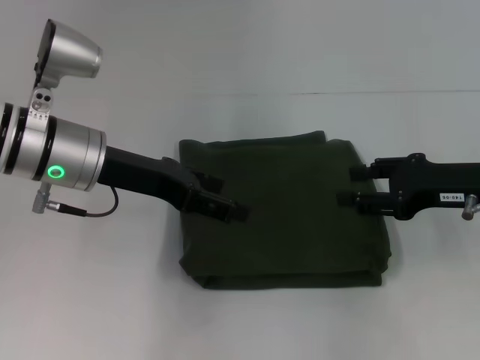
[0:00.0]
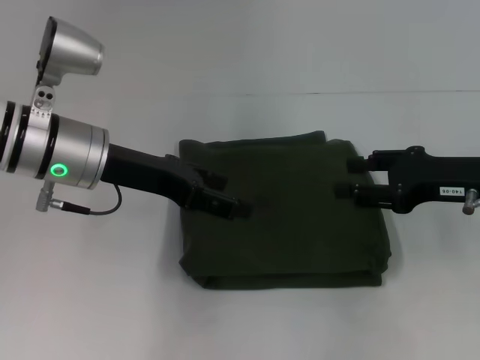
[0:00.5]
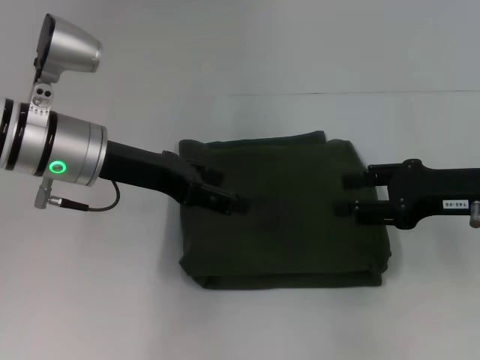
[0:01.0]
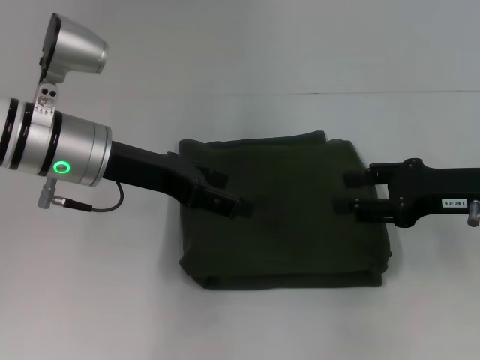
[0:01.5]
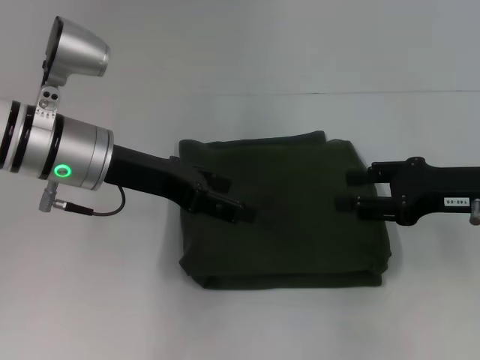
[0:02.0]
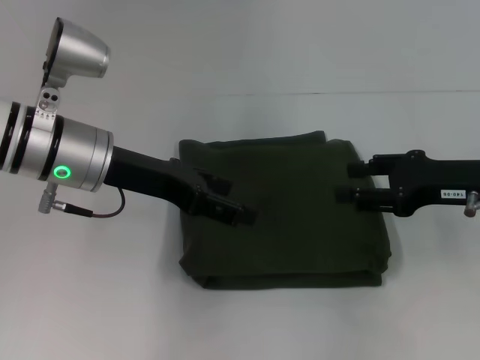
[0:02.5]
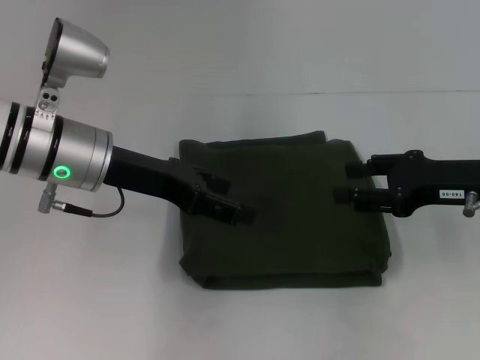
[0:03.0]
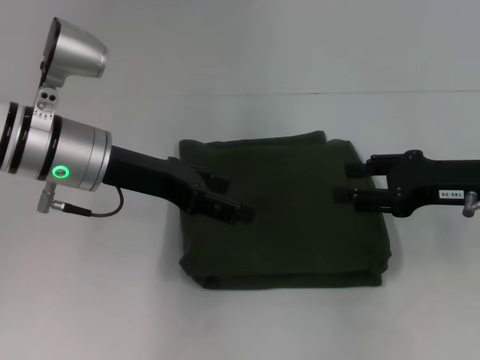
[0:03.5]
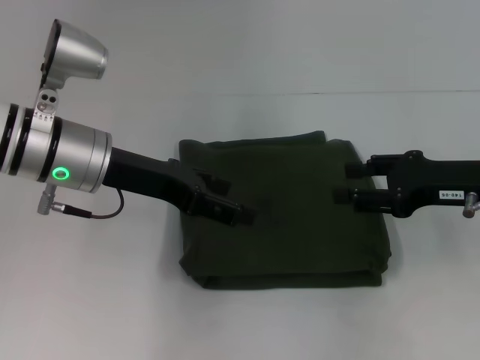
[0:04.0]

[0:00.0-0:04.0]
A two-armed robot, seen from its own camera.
0:00.0 to 0:02.0: The grippers stay close to where they were, moving slightly.
0:02.0 to 0:04.0: Both grippers stay about where they are.

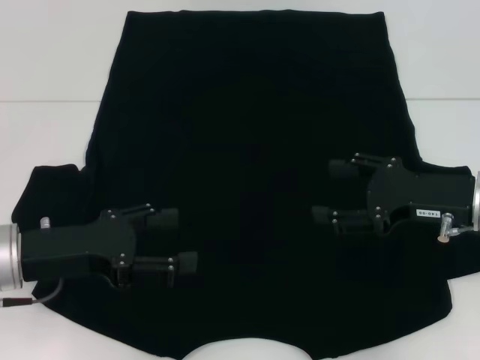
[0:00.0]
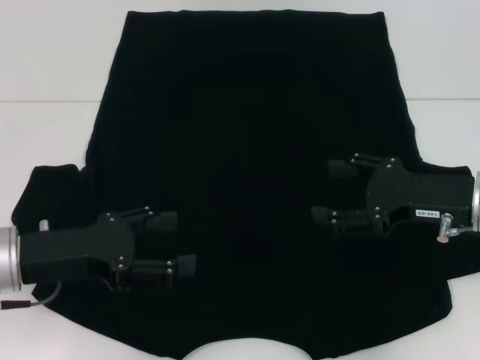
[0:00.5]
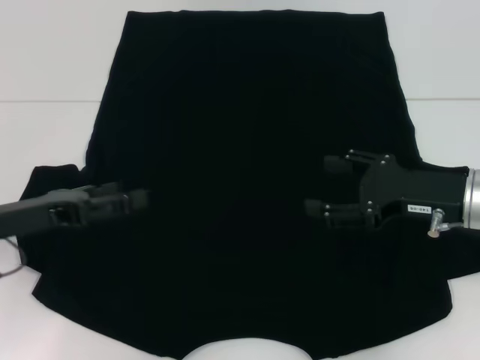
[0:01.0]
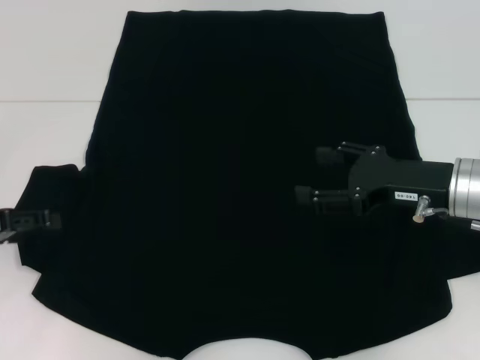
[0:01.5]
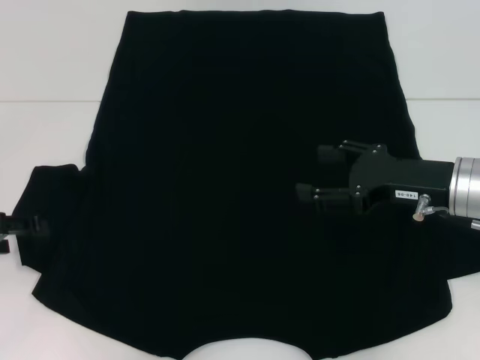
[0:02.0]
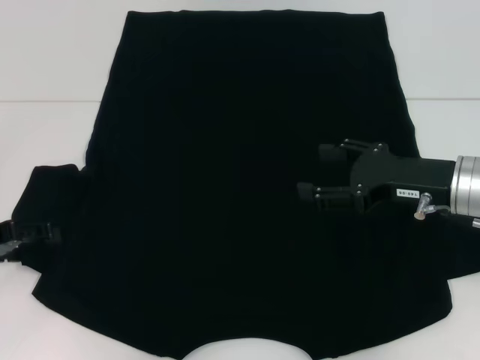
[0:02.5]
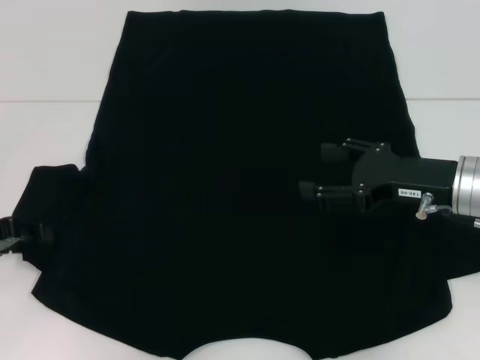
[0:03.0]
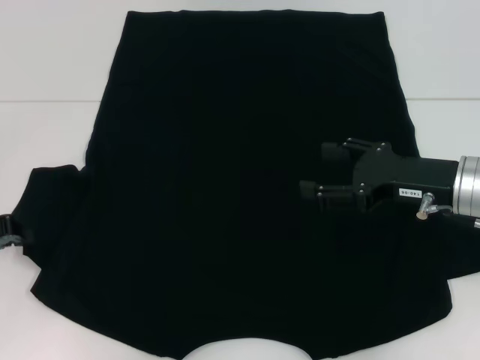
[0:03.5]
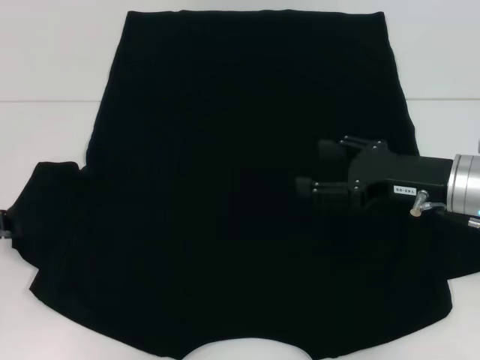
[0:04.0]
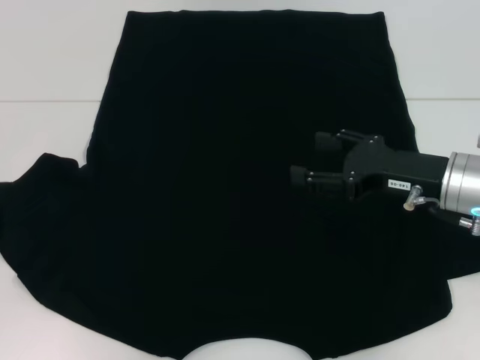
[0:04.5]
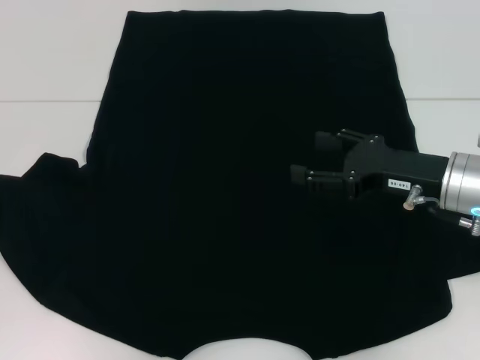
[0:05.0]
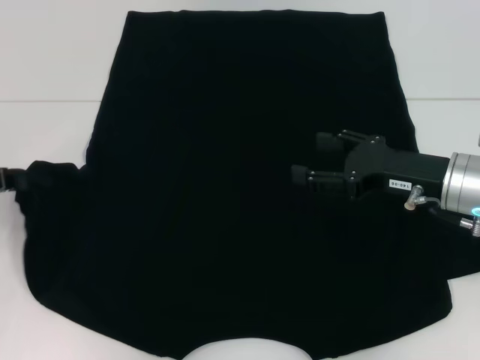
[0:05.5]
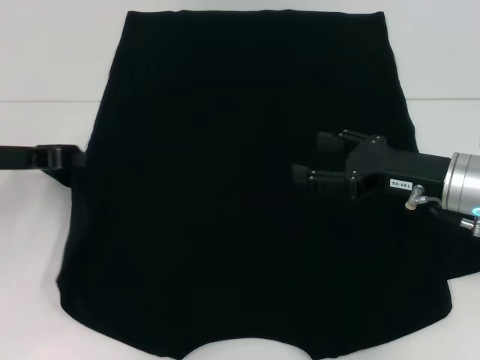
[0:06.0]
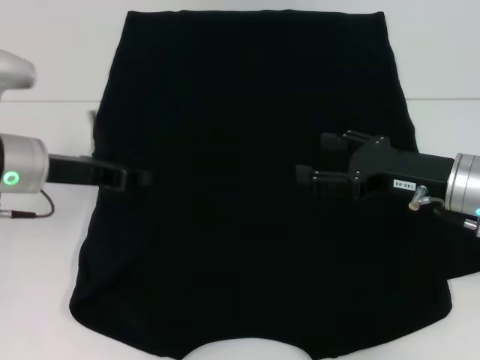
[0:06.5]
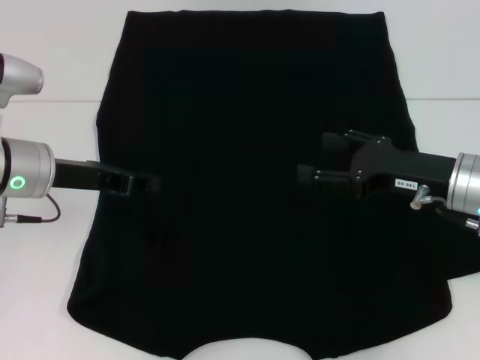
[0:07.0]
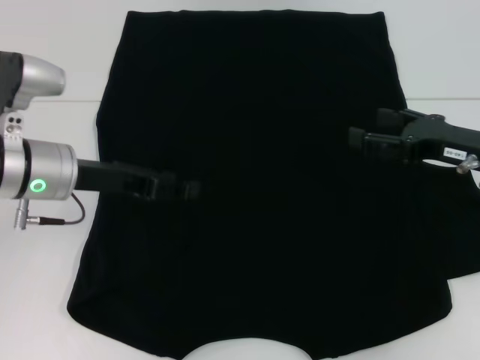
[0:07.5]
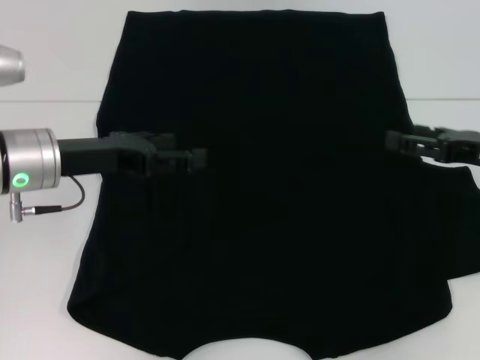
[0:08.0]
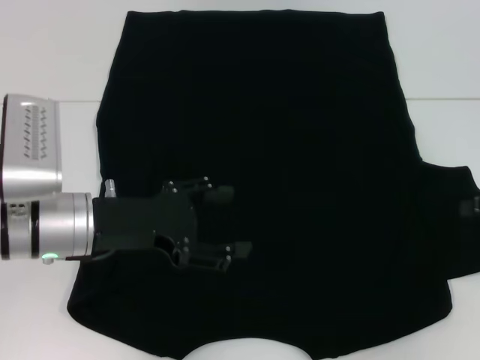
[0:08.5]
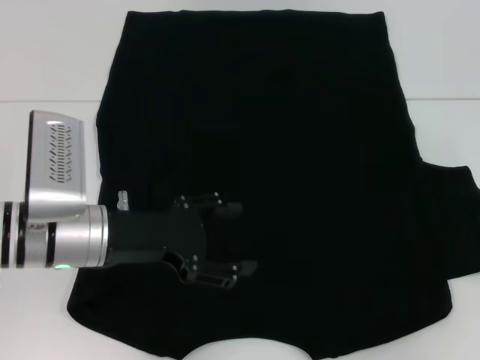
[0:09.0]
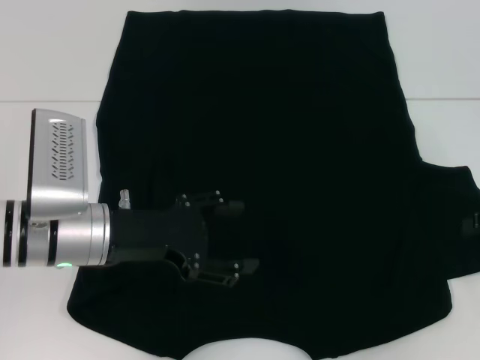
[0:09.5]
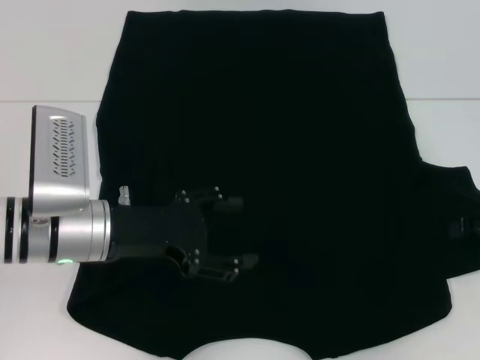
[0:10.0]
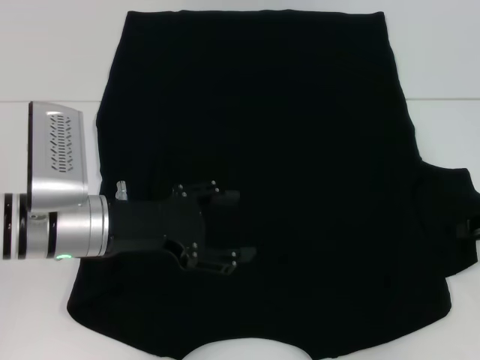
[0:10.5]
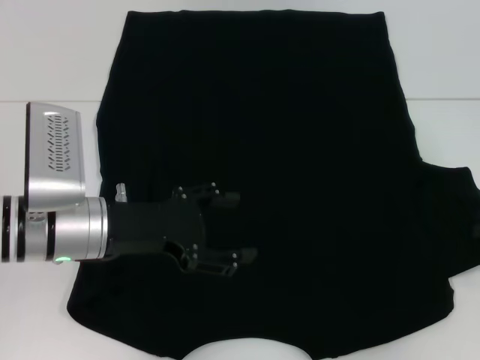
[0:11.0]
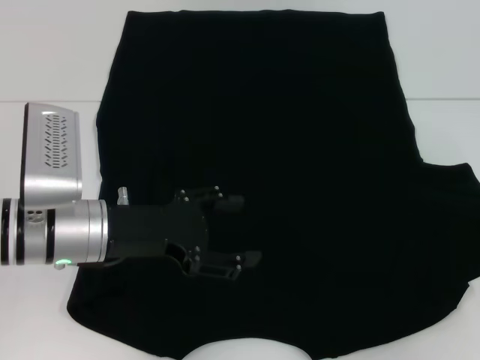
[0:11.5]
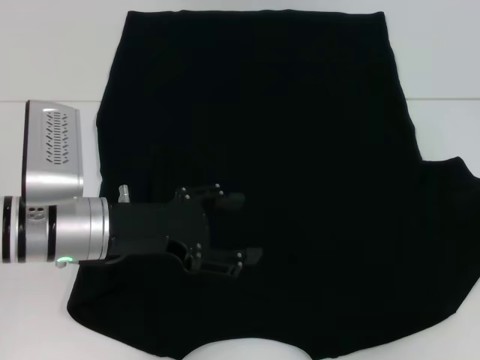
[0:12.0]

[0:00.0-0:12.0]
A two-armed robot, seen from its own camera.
Step, 0:00.0 to 0:08.0: Fold the bottom left sleeve with your left hand.
0:00.0 to 0:02.0: The left gripper goes roughly 10 cm to the left.
0:02.0 to 0:04.0: The left gripper closes its fingers.
0:04.0 to 0:06.0: The left gripper shifts some 5 cm forward and to the right.
0:06.0 to 0:08.0: Both grippers travel together to the right, approximately 10 cm. The left gripper opens up.
0:08.0 to 0:10.0: The left gripper ends up approximately 5 cm from where it was.
0:10.0 to 0:12.0: The right gripper closes its fingers.

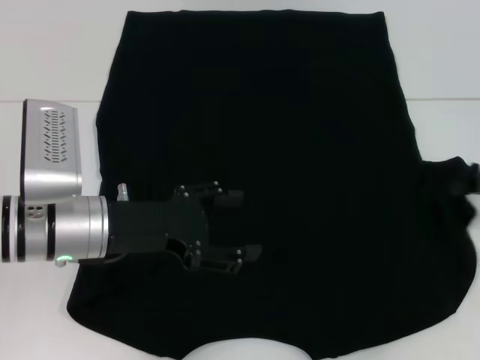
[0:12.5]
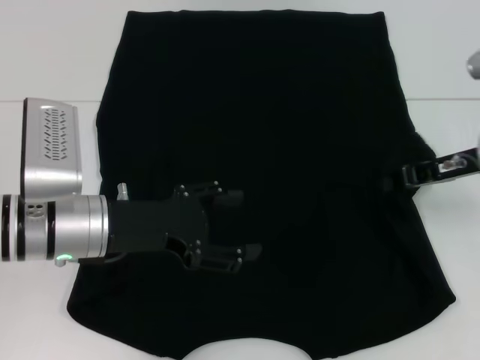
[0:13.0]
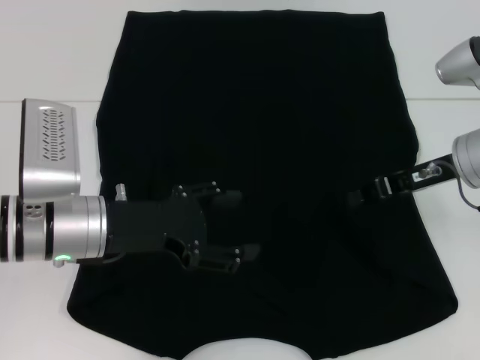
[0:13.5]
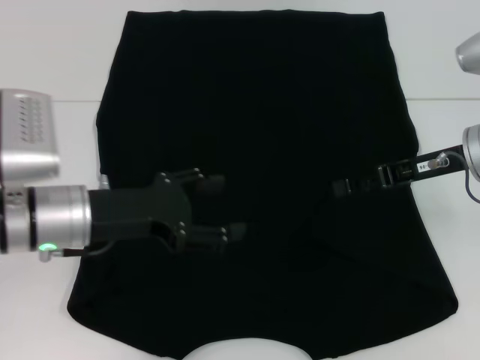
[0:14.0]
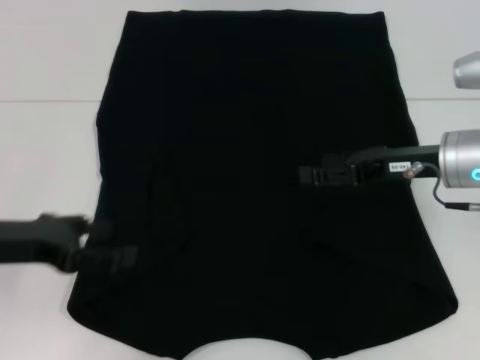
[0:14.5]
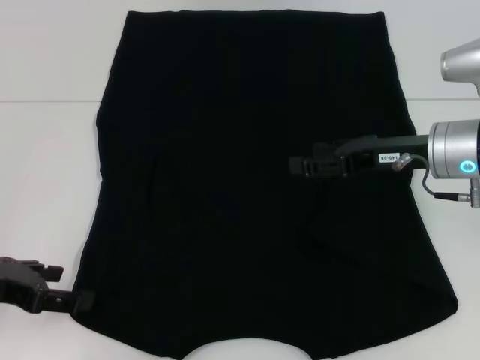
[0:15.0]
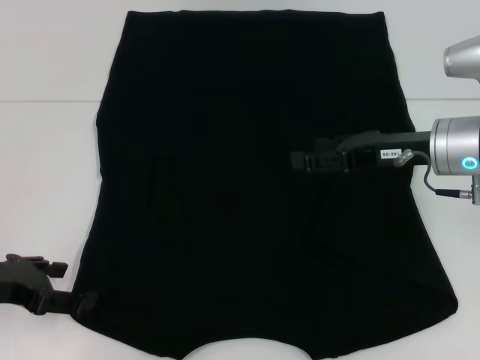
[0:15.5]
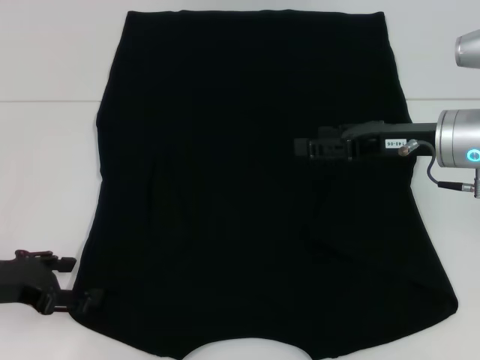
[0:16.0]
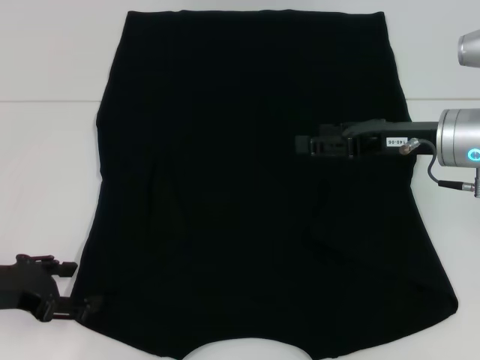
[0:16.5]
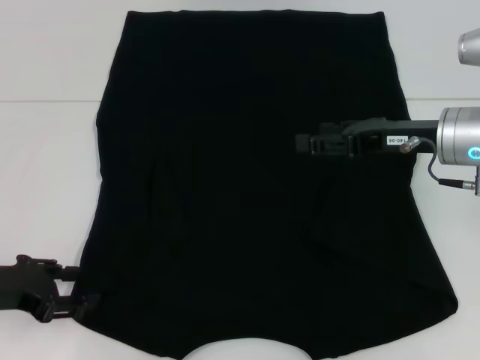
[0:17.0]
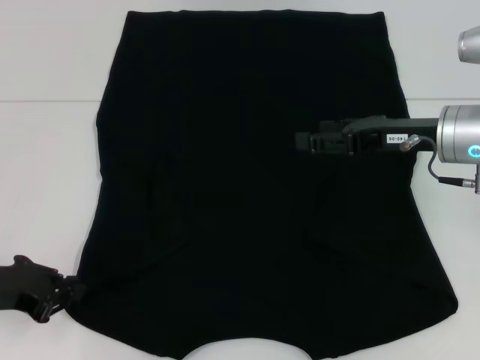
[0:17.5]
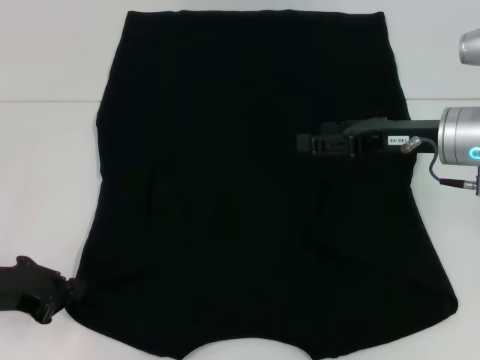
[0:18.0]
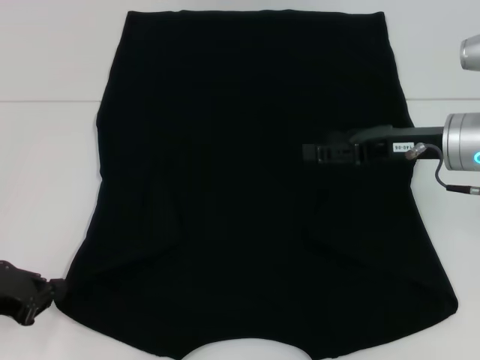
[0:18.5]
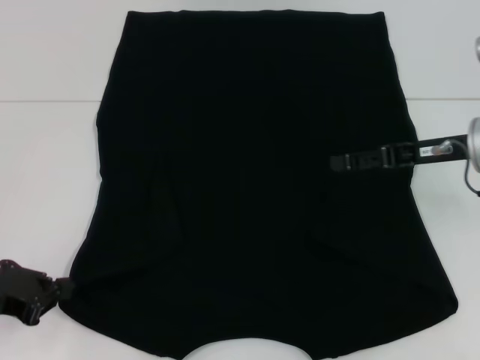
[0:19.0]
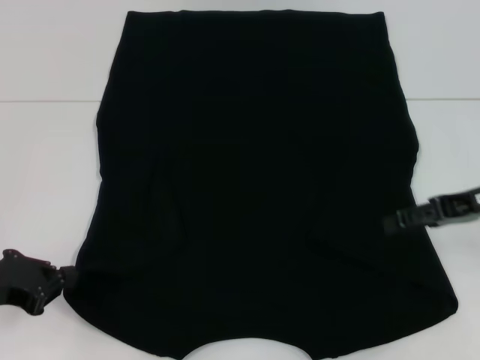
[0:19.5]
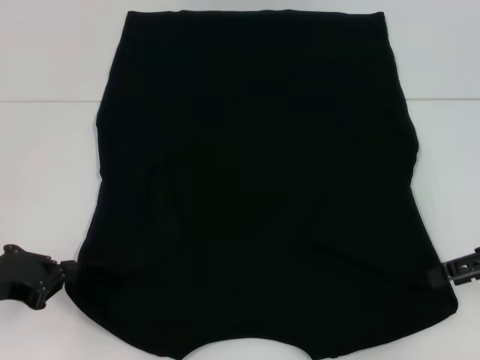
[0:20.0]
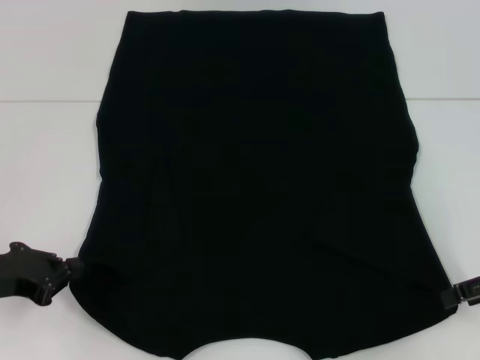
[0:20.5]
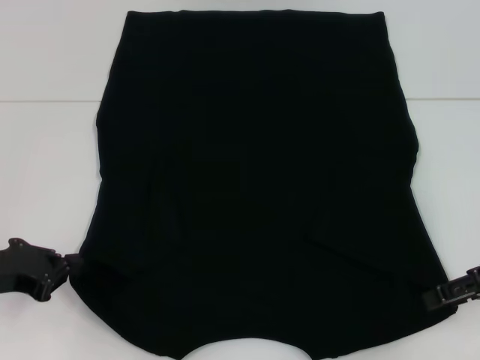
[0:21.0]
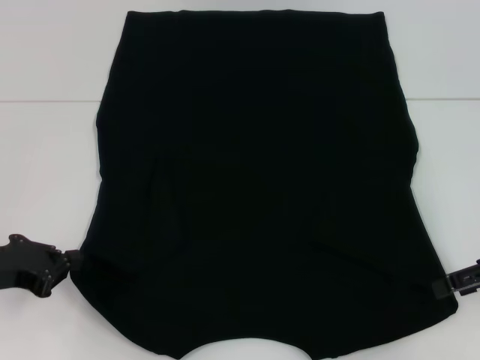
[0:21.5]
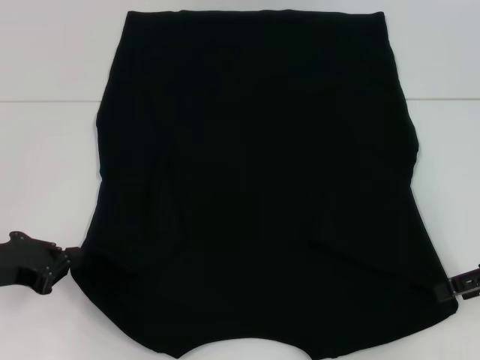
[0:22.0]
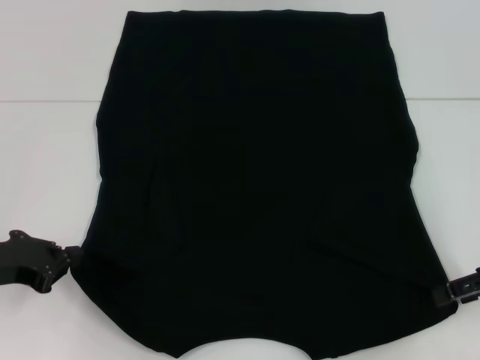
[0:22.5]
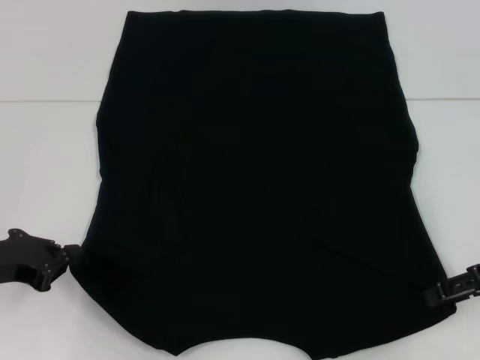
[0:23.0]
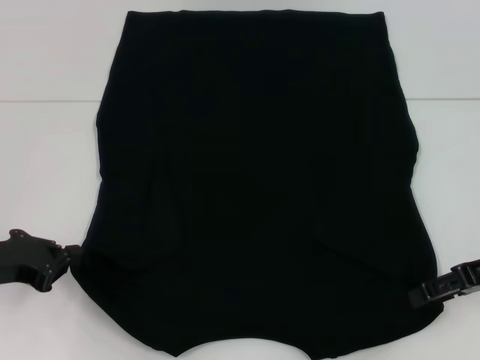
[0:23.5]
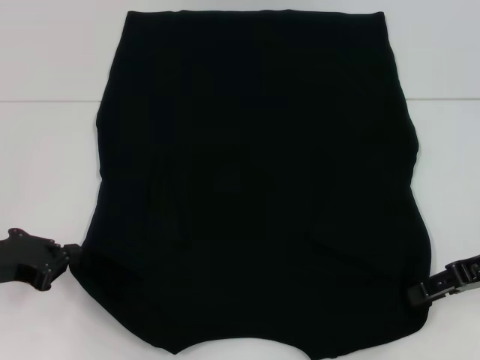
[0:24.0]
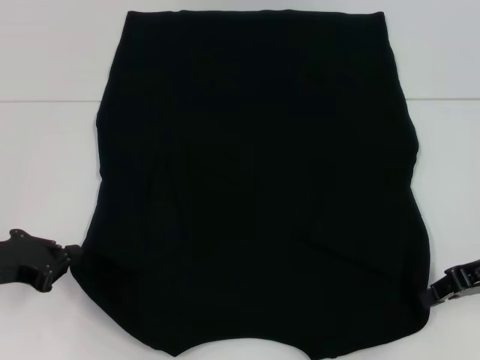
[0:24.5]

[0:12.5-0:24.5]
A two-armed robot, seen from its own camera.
Step, 0:14.0 to 0:23.5: Grab the bottom left corner with your left hand.
Step, 0:14.0 to 0:23.5: Grab the bottom right corner with your right hand.
0:12.5 to 0:14.5: Both grippers travel together to the left, some 10 cm. The right gripper opens up.
0:14.5 to 0:16.5: The left gripper shifts by roughly 5 cm.
0:16.5 to 0:18.5: The left gripper closes.
0:18.5 to 0:20.5: The right gripper goes approximately 15 cm to the right and backward.
0:20.5 to 0:22.5: The grippers stay close to where they were, moving slightly.
0:22.5 to 0:24.5: The right gripper closes.
